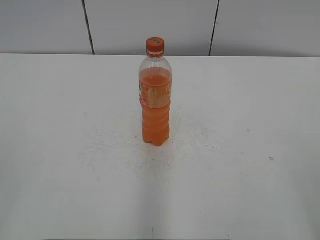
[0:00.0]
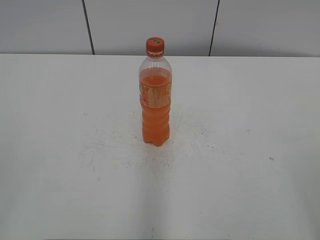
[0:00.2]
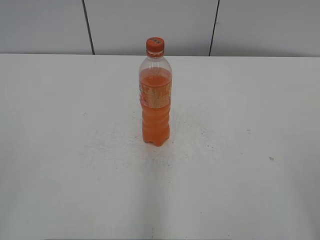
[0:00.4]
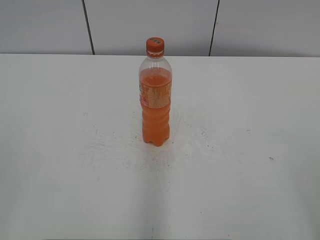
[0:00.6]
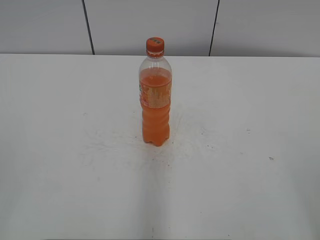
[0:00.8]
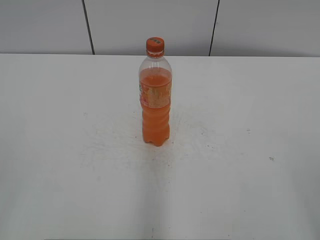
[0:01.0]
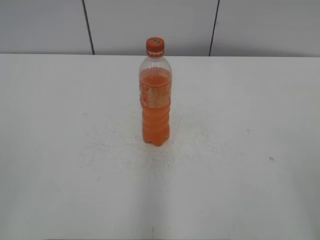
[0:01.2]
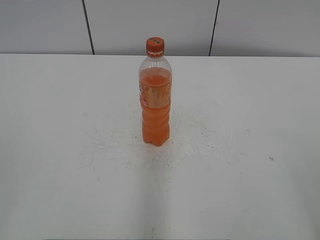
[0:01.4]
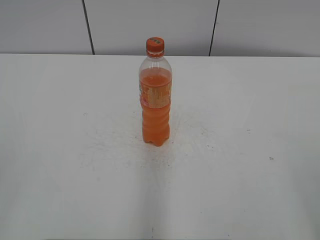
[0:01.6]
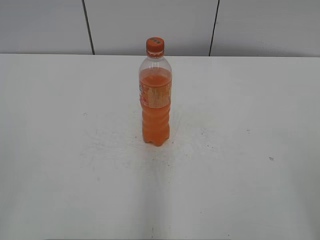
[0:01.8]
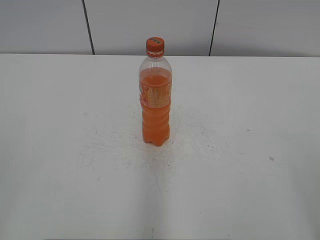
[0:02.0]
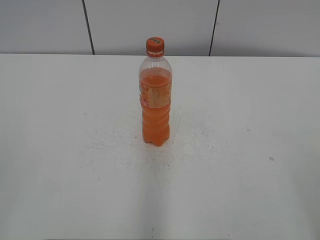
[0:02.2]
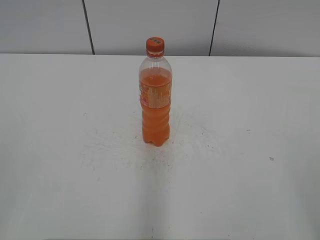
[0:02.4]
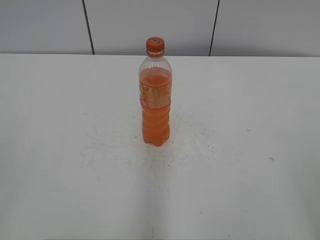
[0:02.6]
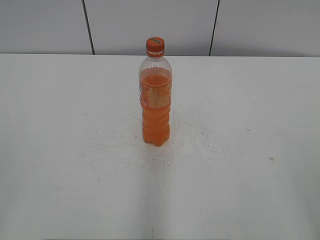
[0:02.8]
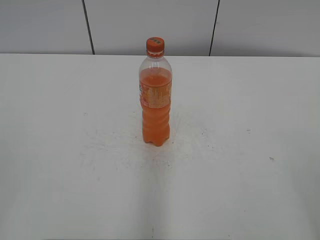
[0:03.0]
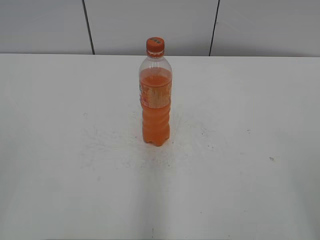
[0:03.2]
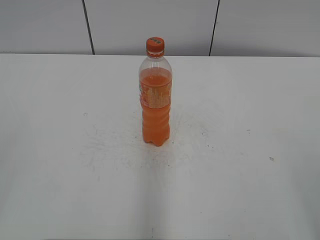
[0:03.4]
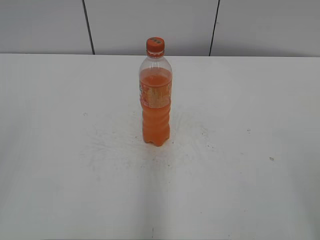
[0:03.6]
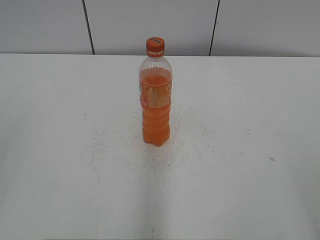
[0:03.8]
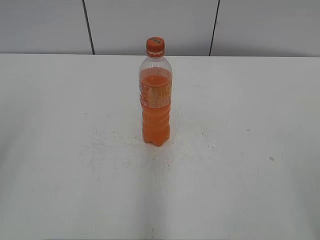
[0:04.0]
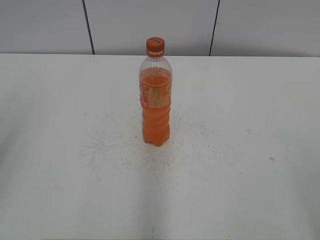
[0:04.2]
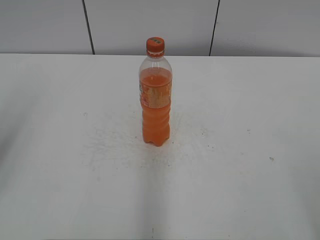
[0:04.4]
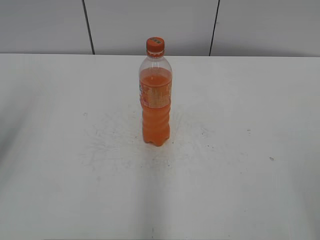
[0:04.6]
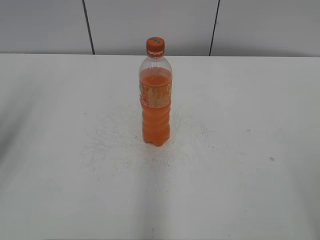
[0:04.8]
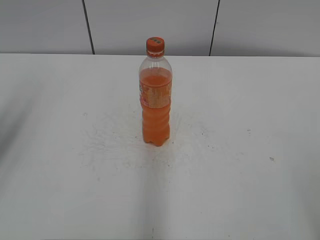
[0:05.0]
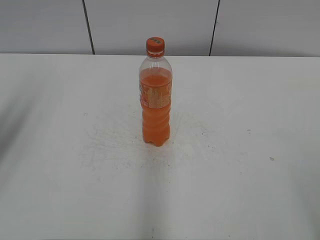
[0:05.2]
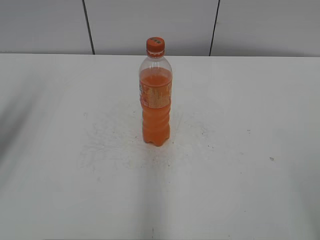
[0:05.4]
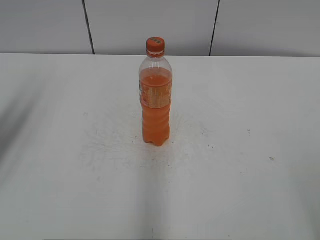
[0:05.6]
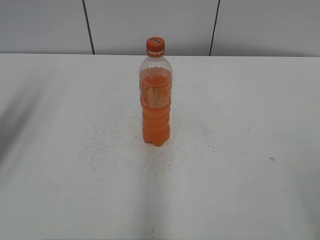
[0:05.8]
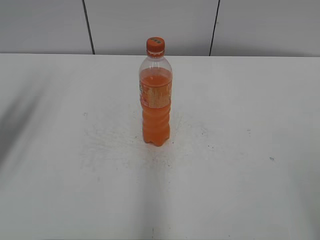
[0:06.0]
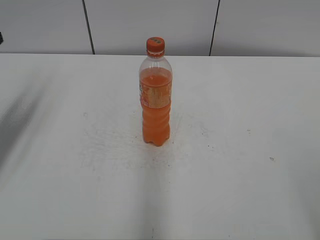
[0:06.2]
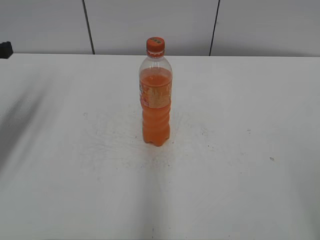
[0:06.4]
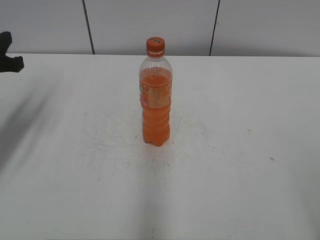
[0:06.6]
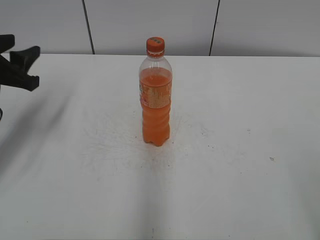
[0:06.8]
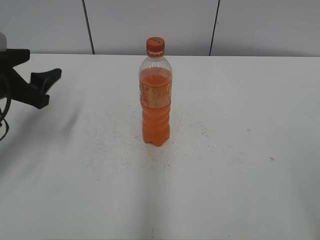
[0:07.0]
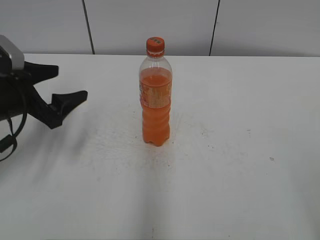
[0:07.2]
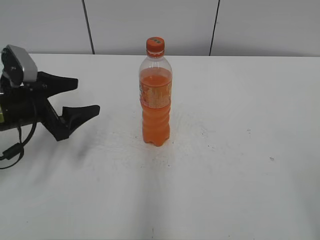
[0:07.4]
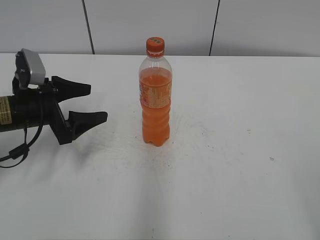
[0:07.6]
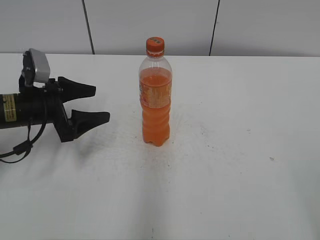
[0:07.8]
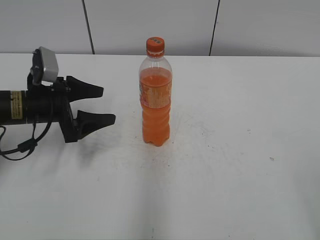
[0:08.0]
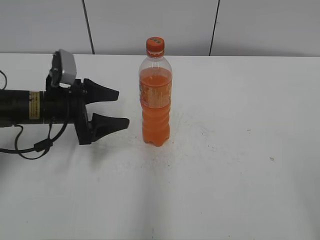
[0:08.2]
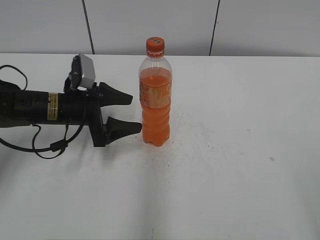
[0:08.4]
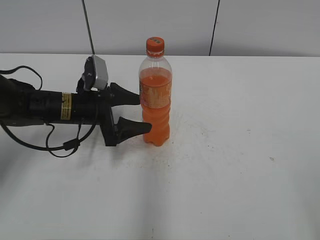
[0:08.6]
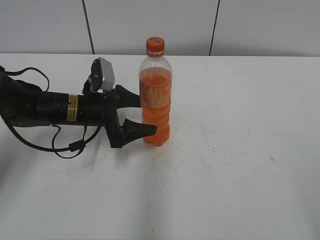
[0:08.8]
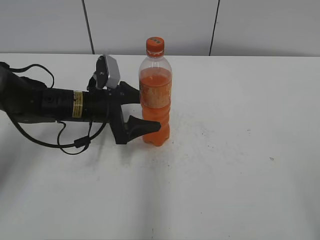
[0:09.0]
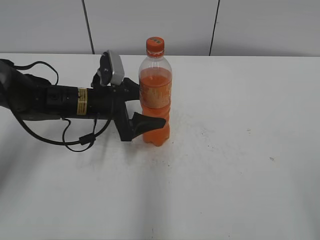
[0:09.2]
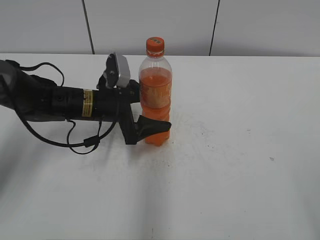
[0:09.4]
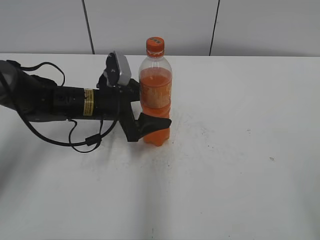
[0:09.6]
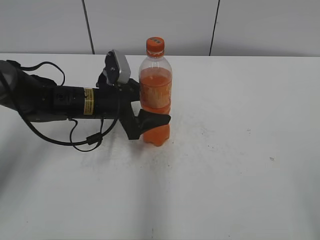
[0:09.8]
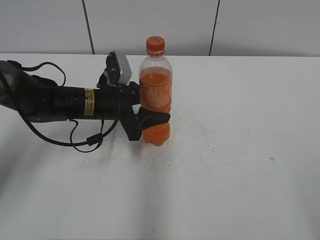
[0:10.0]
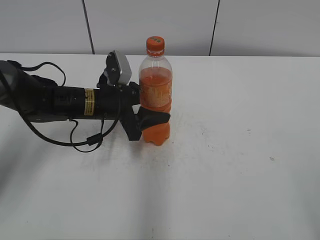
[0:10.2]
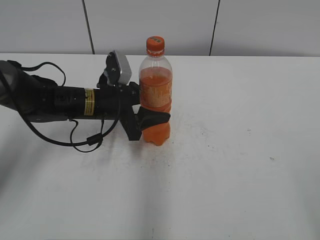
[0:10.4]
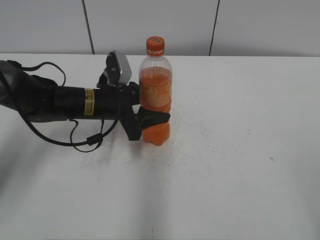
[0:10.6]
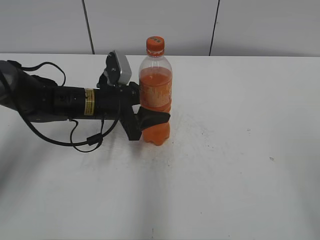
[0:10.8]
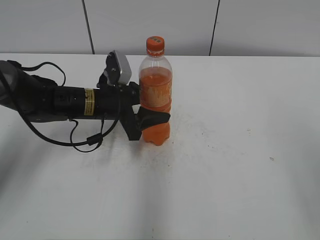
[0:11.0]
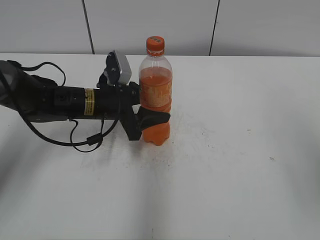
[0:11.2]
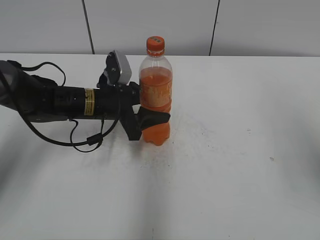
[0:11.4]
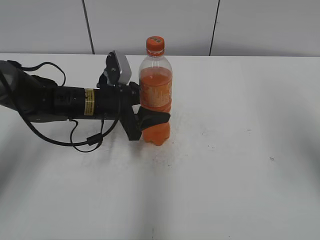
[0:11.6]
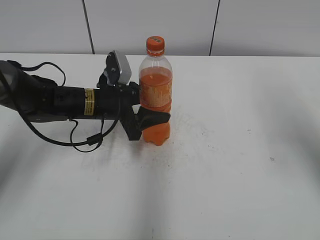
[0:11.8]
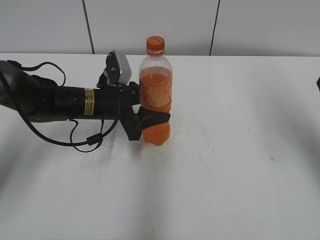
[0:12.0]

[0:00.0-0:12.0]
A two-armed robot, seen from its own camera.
Step, 0:00.0 to 0:10.2: Grab the Mirinda with the left hand.
0:01.6 to 0:03.0: Both grippers stay put.
0:04.4 to 0:06.0: The left gripper heads forward and downward, covering roughly 15 cm.
0:06.0 to 0:07.6: The left gripper shifts approximately 15 cm downward and to the right, and opens.
0:07.6 to 0:09.0: The left gripper travels to the right by approximately 10 cm.
0:09.0 to 0:10.4: The left gripper closes its fingers.
0:10.4 to 0:12.0: The right gripper moves forward, some 25 cm.

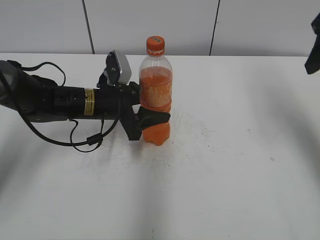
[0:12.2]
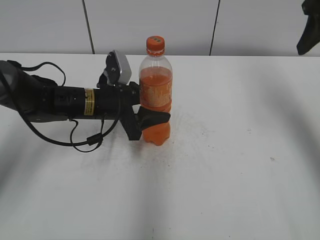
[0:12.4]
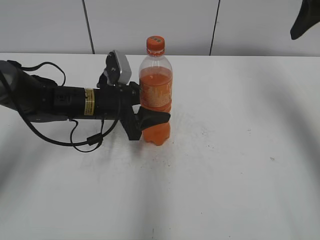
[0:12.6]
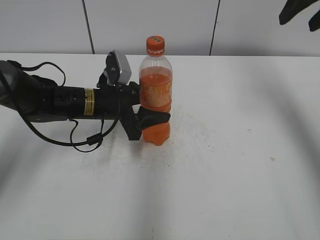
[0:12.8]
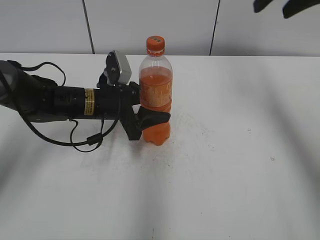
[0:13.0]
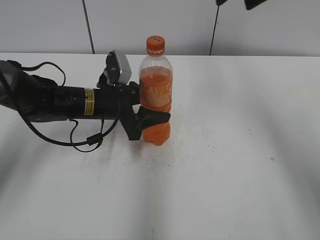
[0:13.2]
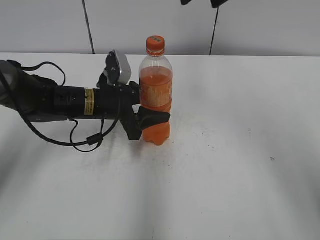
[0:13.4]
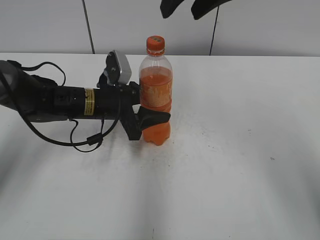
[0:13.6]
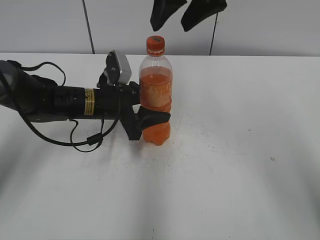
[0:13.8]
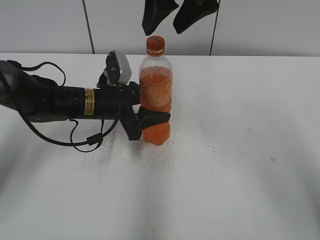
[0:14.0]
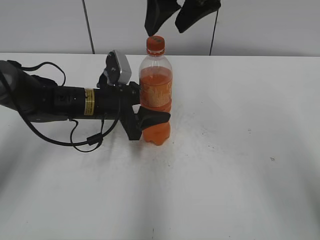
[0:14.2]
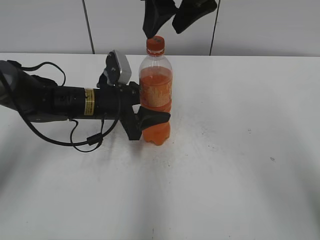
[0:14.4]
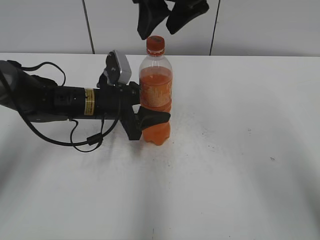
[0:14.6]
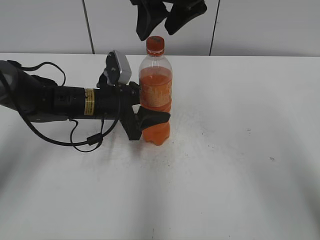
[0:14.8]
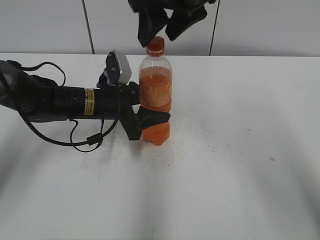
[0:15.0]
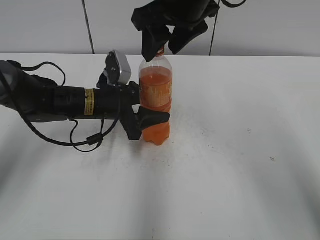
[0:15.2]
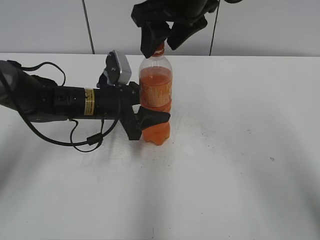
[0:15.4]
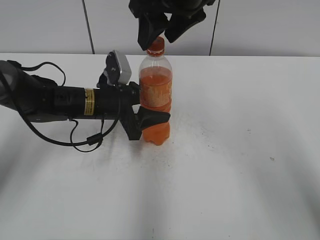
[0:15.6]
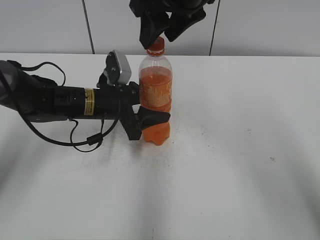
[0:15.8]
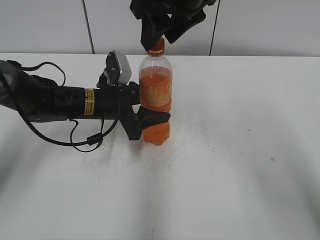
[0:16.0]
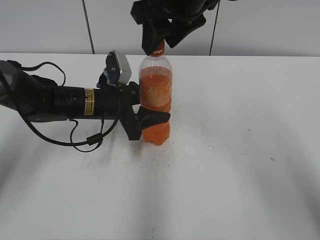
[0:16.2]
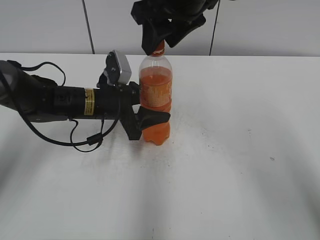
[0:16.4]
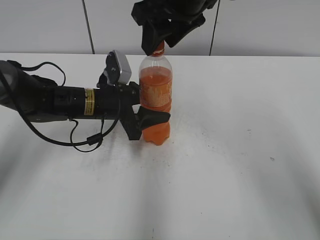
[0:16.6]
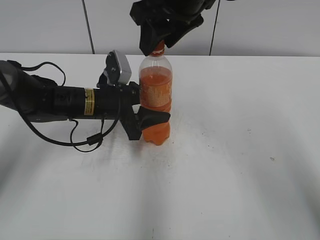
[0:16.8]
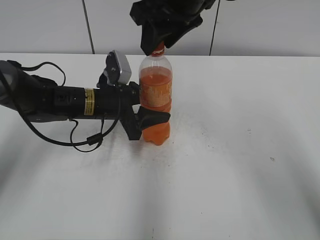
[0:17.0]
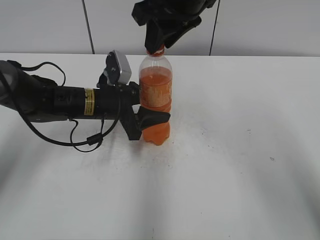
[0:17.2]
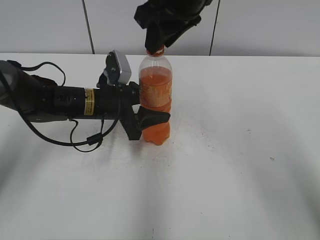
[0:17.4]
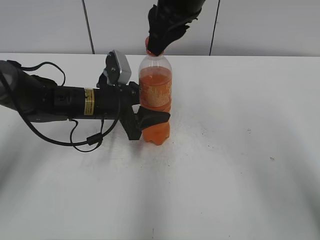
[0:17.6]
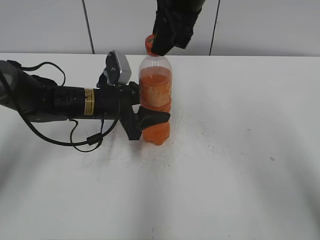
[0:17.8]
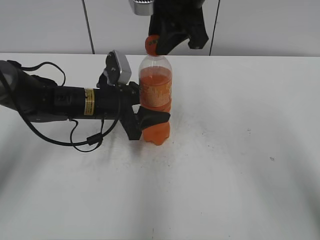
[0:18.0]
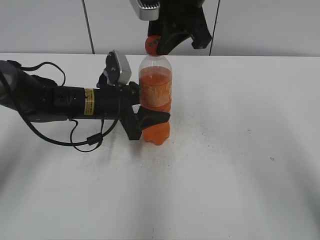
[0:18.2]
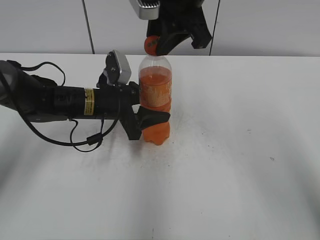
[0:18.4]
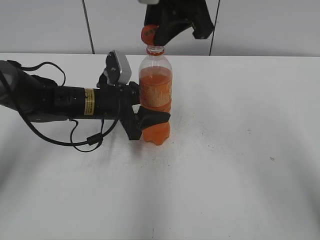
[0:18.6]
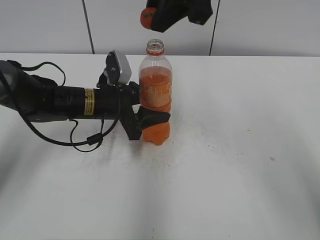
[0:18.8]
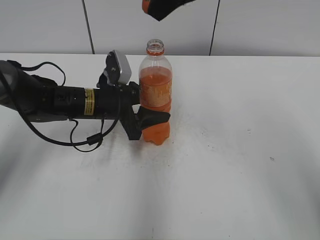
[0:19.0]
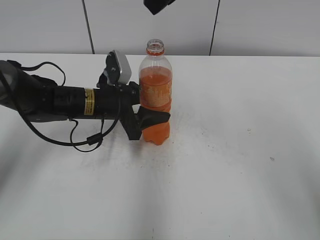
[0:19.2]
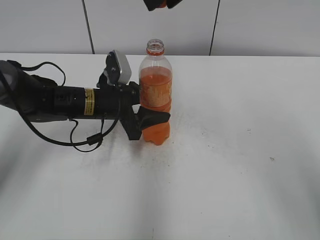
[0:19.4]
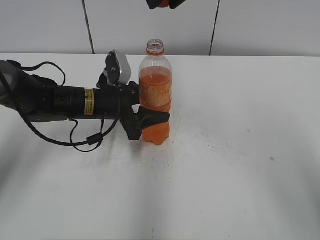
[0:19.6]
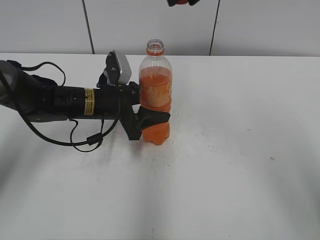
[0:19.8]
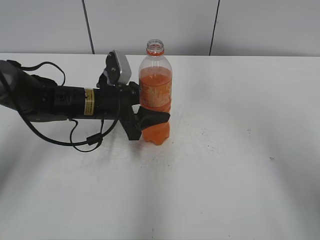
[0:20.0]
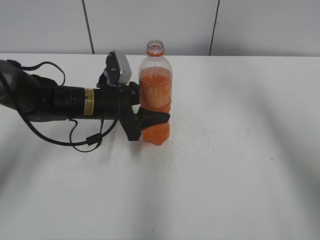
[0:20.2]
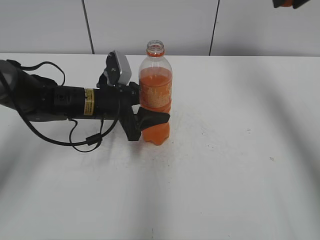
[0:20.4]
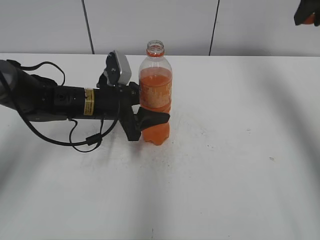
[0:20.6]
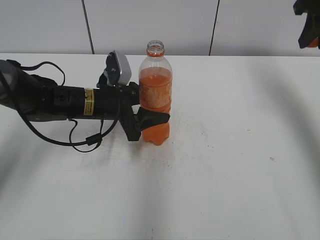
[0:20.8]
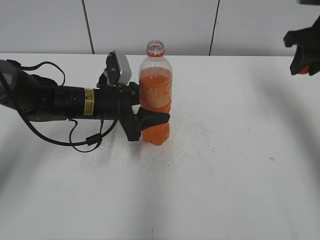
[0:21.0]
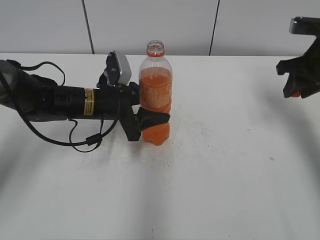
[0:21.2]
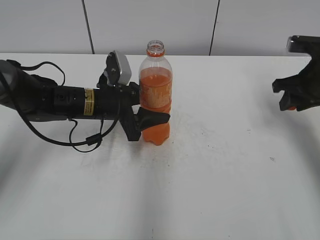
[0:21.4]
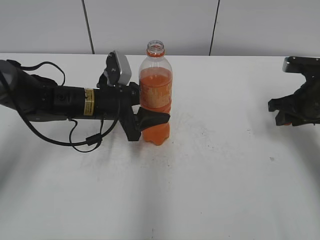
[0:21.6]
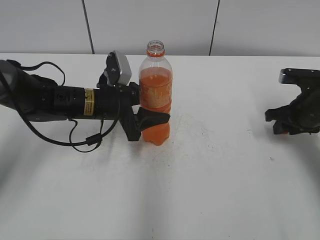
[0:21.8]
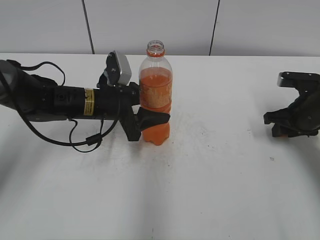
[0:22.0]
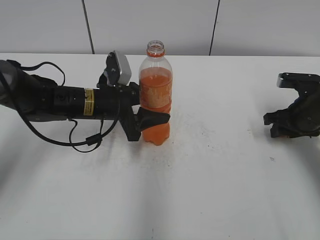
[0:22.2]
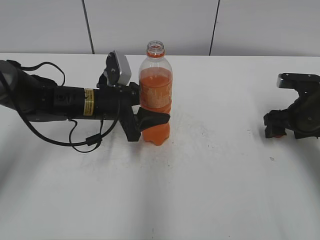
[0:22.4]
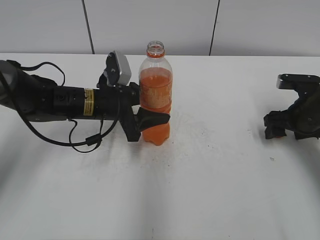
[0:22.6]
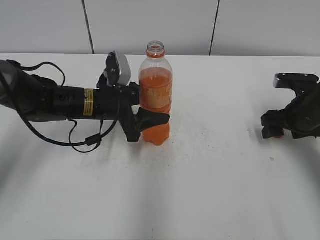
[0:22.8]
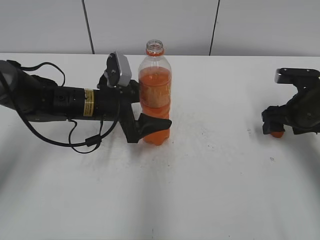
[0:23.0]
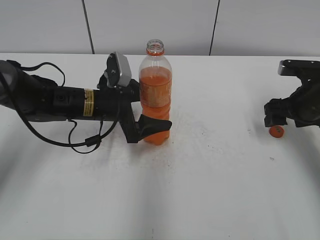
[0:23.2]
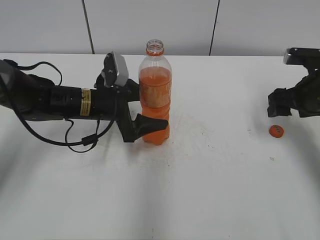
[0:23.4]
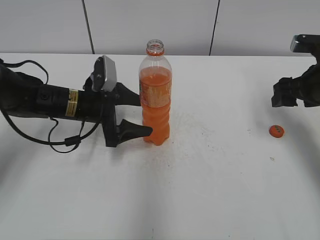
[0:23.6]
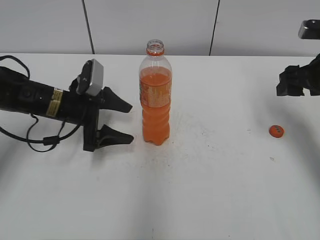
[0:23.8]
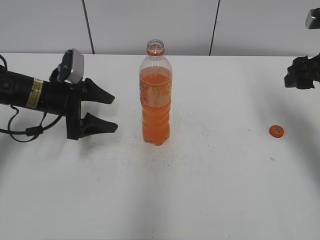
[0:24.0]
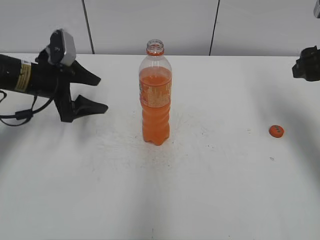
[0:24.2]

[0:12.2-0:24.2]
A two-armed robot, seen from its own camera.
Step, 0:18.8 to 0:22.6: Place the bottle cap on the right.
0:12.2 to 0:13.8: The right gripper shifts approximately 20 cm to the left.
0:13.8 to 0:16.6: The grippers move only a little.
0:16.6 to 0:18.2: The right gripper closes its fingers.
0:18.2 to 0:19.8: The right gripper is displaced upward by some 5 cm.
0:19.8 to 0:21.2: The right gripper heads to the right and downward, covering roughly 25 cm.
0:21.2 to 0:22.6: The right gripper is displaced downward by about 10 cm, and opens its fingers.
0:22.6 to 0:24.2: The left gripper is displaced to the left by approximately 10 cm, and opens its fingers. Meanwhile the right gripper goes some 15 cm upward.
